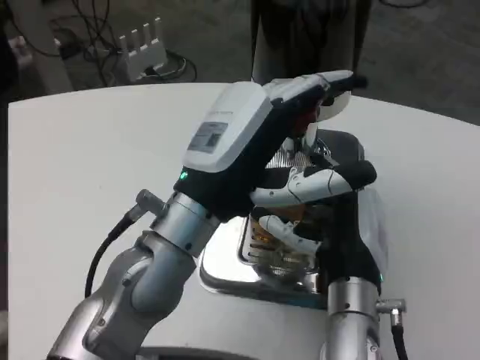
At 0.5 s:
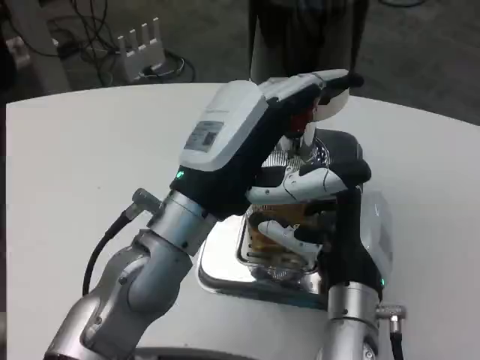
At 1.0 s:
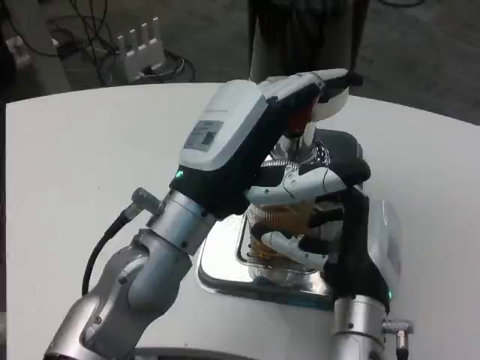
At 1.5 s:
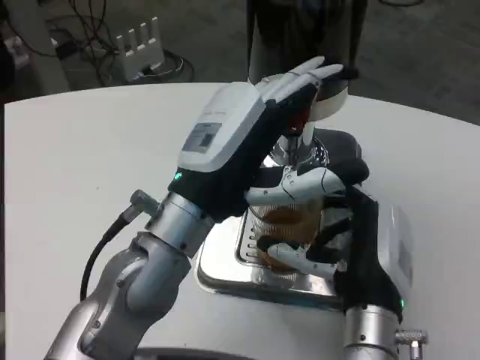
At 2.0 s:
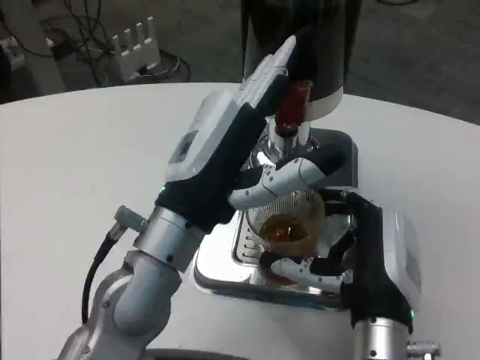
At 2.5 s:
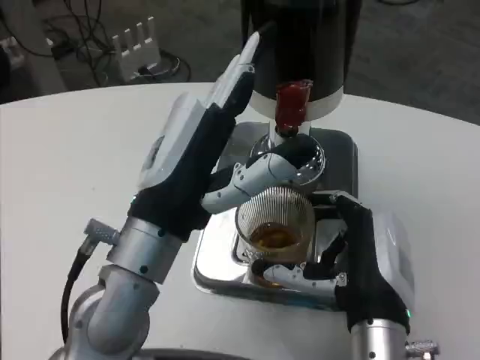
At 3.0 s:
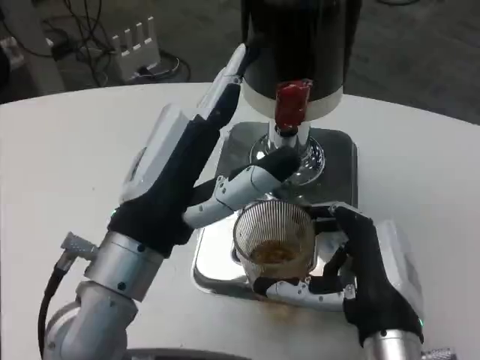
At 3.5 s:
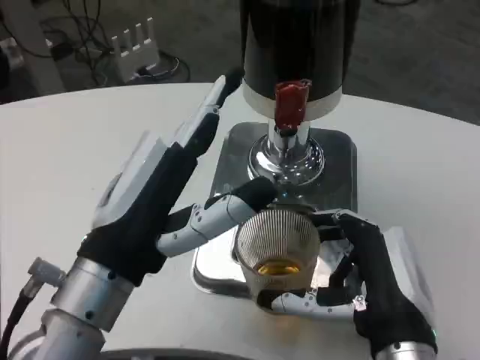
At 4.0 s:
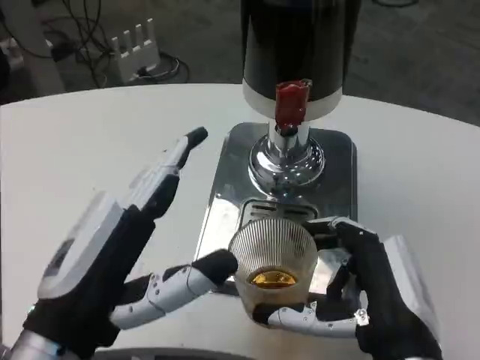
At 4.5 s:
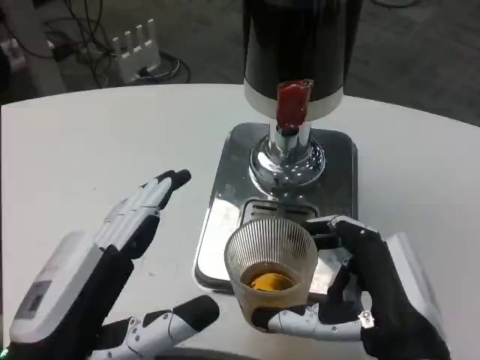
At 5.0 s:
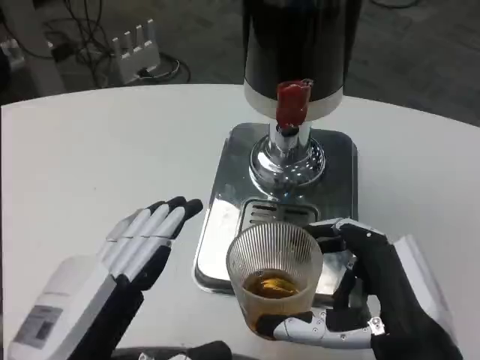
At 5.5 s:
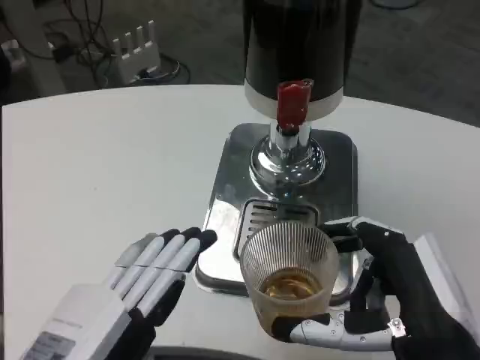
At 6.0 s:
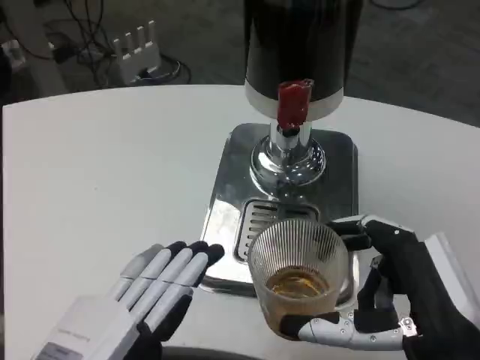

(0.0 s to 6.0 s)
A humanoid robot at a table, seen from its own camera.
Task of the whole recording: Grasp the cup under the faucet to collect the drink, then remove the cup.
2.0 s - 4.0 s: The right hand travels backward by about 5 cm. The left hand shifts roughly 15 cm backward and to the left.
4.0 s - 6.0 s: The left hand goes about 5 cm backward, while the right hand ends up approximately 5 cm from where it was.

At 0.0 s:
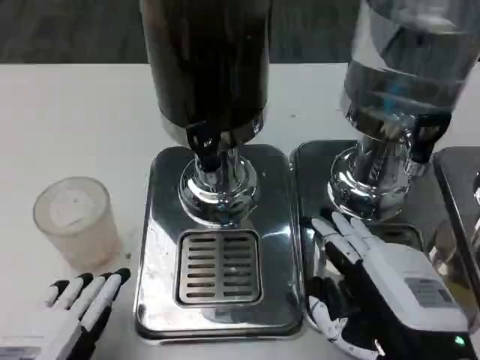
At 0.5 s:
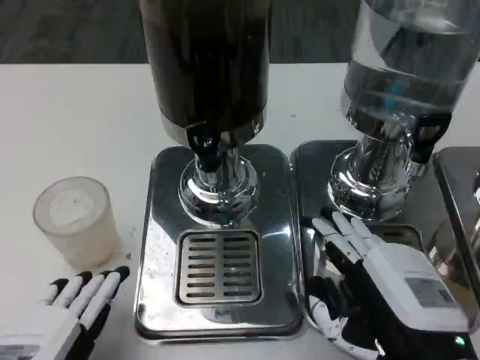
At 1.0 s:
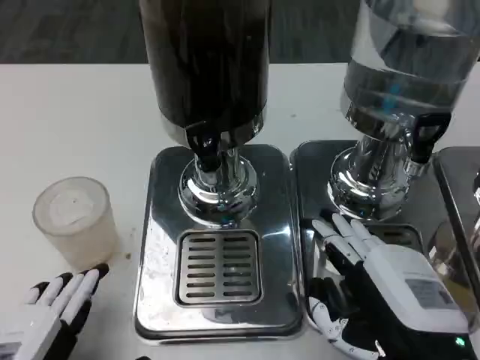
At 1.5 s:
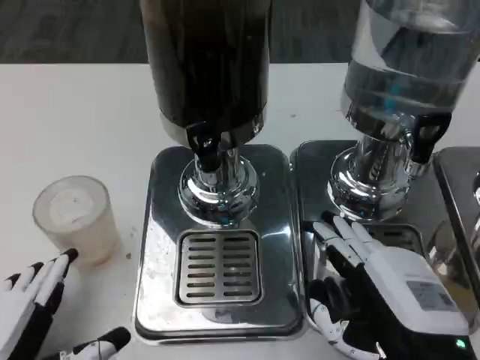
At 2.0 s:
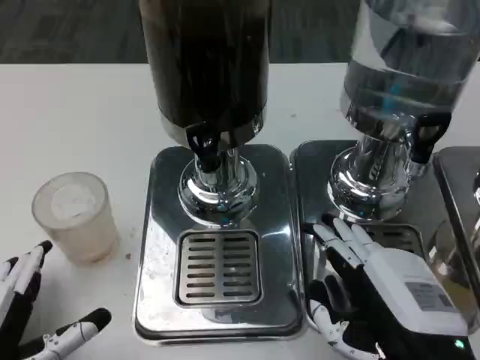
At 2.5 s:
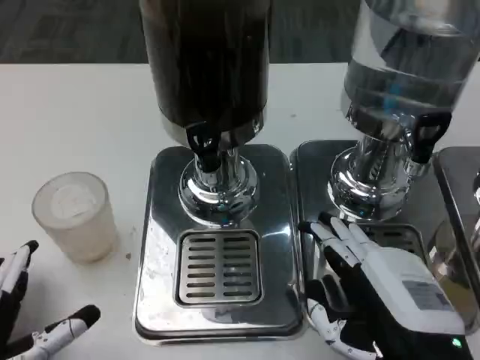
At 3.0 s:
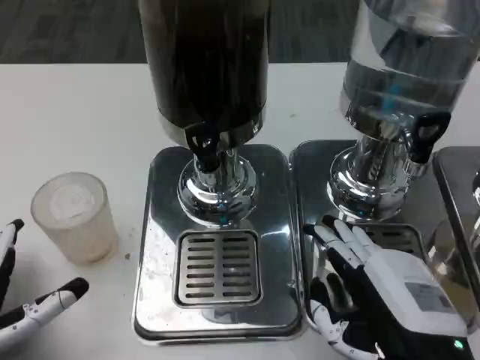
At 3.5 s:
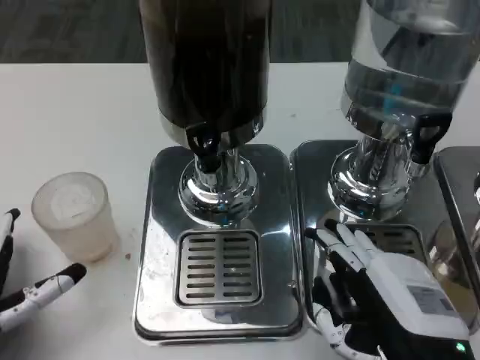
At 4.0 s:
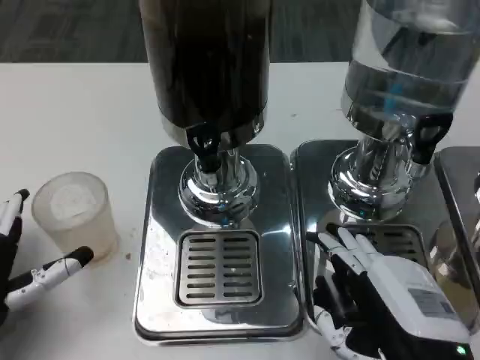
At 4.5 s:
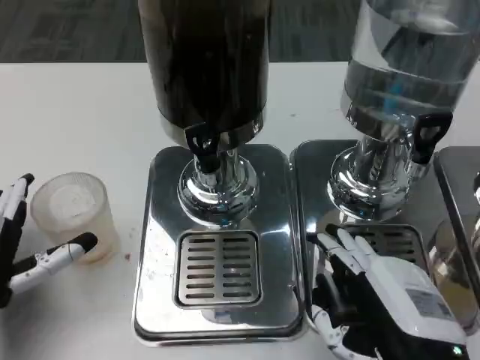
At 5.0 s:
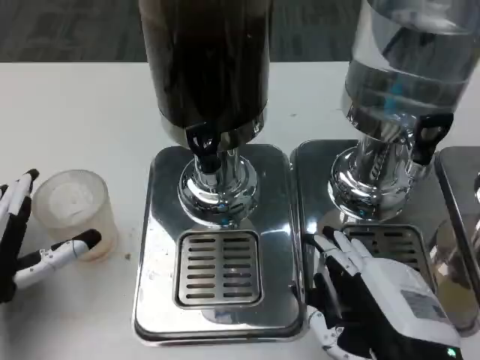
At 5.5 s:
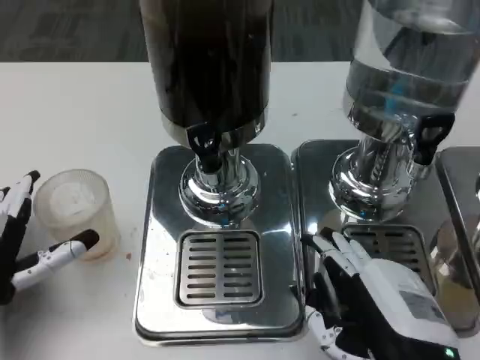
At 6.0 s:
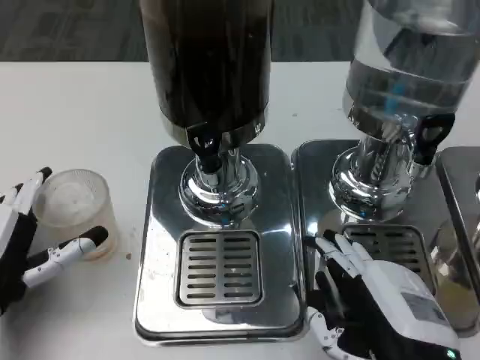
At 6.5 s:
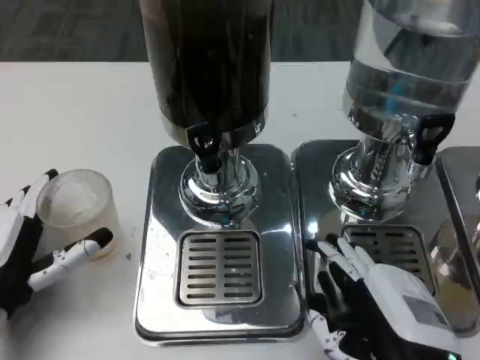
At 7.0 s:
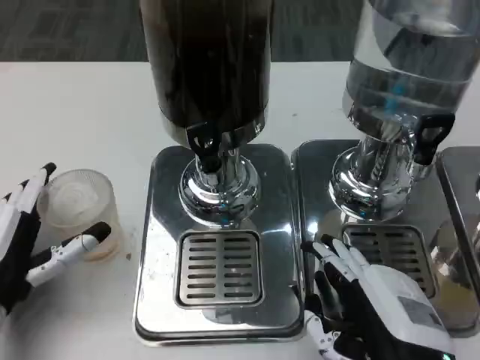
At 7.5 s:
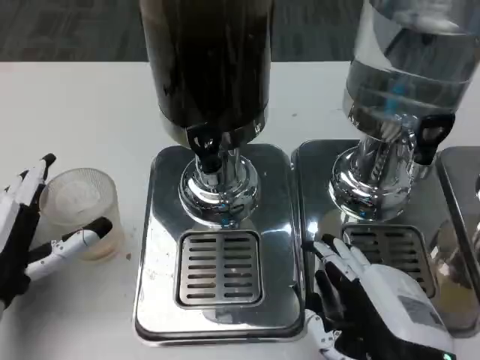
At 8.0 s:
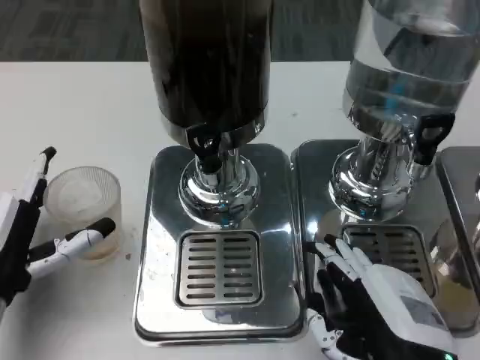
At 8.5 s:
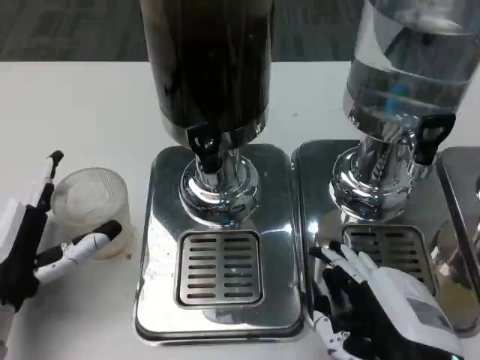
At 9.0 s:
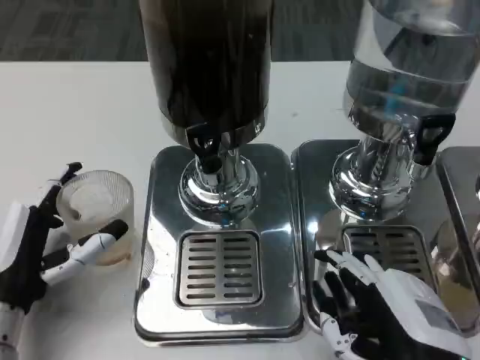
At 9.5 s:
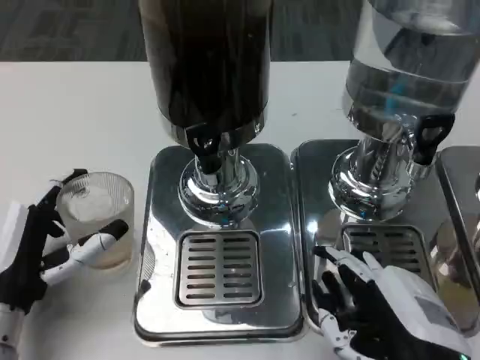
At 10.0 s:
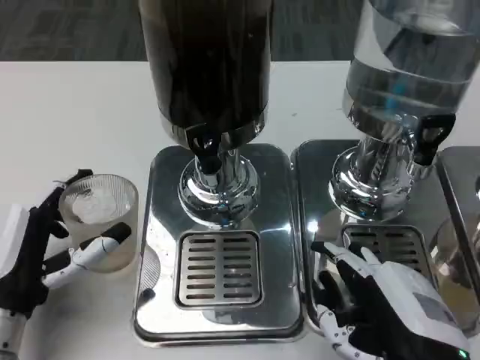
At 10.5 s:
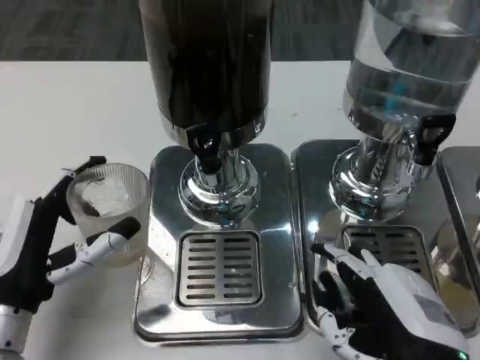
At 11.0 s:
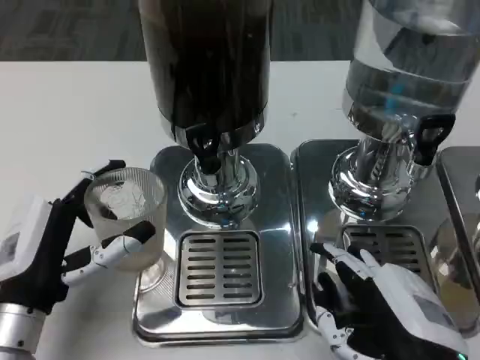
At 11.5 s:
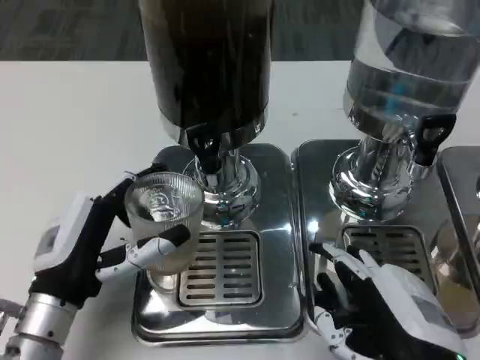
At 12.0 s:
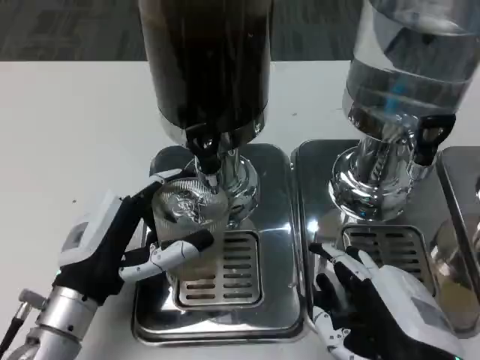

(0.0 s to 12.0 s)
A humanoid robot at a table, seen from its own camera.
Task of the whole recording: Grasp the cup under the faucet to collect the drink, then remove the cup.
0.0 s - 2.0 s: The hands move only a little.
2.0 s - 4.0 s: The left hand goes about 5 cm forward.
4.0 s - 8.0 s: The hands make only small movements.
8.0 s - 10.0 s: The hands move only a little.
10.0 s - 12.0 s: The left hand moves to the right, roughly 5 cm.

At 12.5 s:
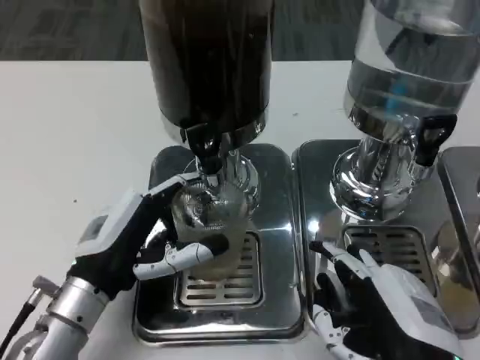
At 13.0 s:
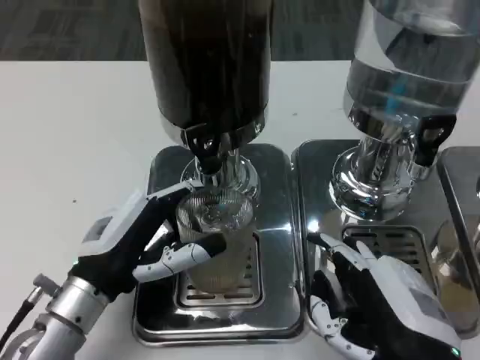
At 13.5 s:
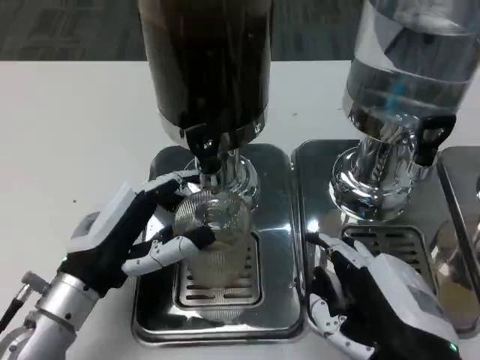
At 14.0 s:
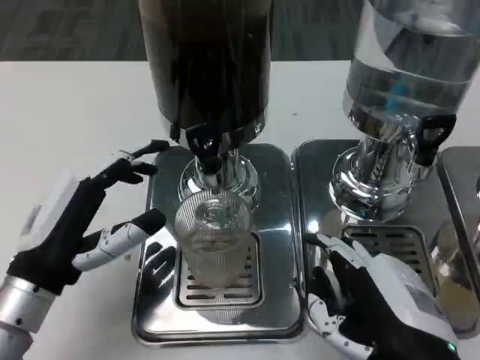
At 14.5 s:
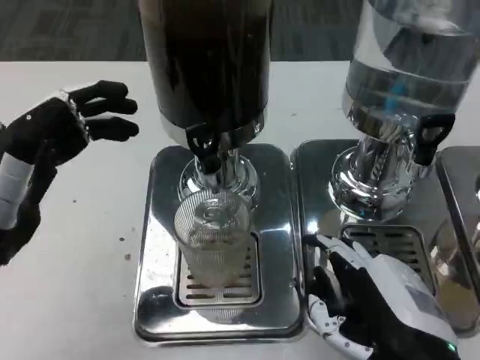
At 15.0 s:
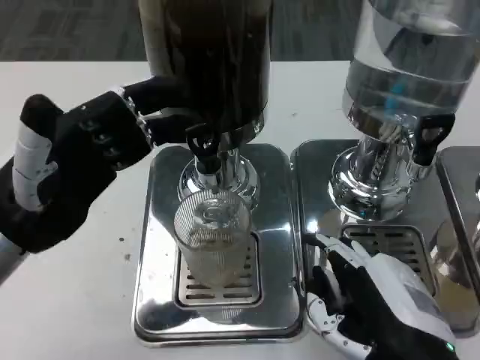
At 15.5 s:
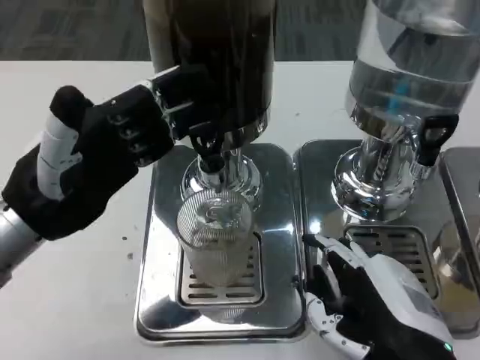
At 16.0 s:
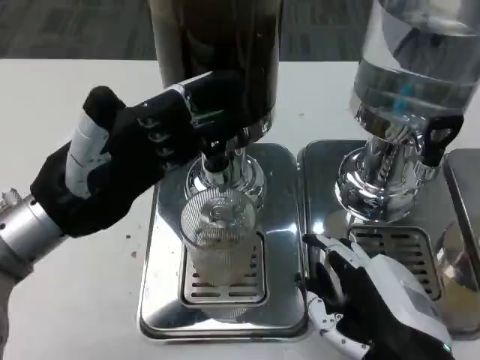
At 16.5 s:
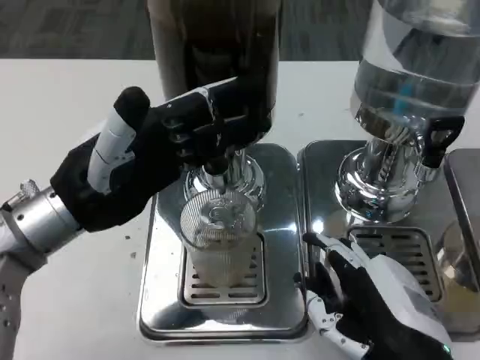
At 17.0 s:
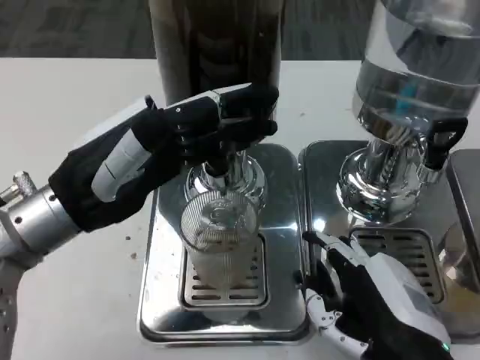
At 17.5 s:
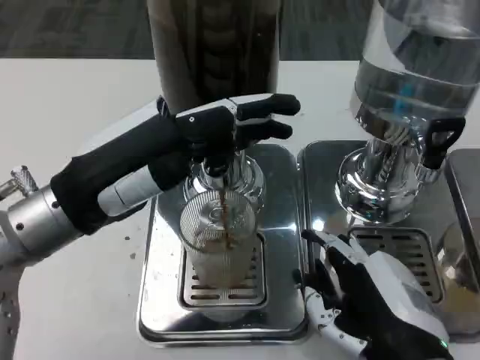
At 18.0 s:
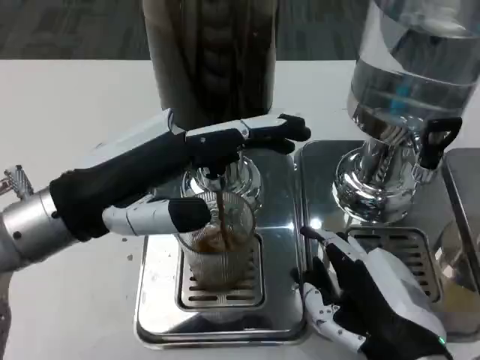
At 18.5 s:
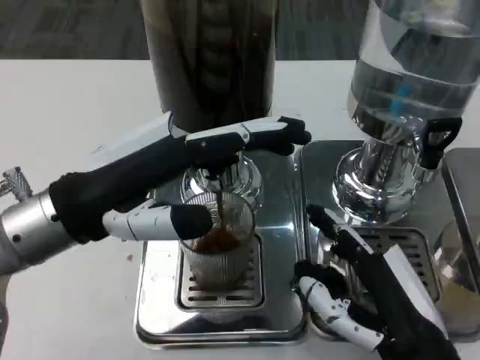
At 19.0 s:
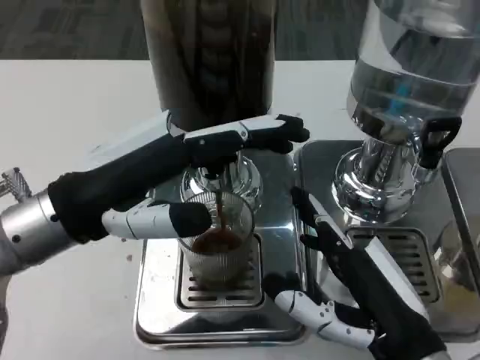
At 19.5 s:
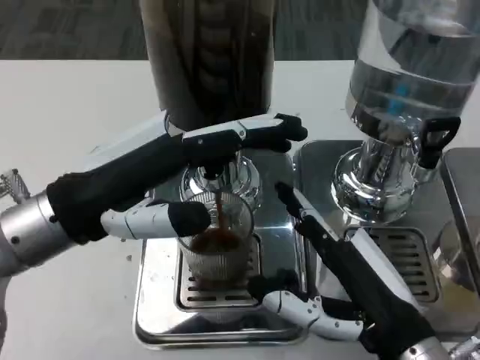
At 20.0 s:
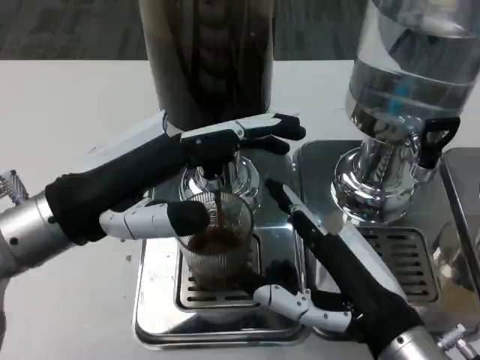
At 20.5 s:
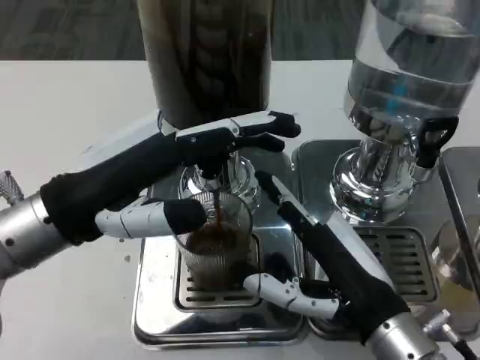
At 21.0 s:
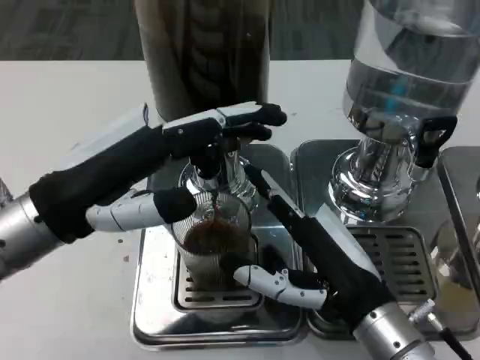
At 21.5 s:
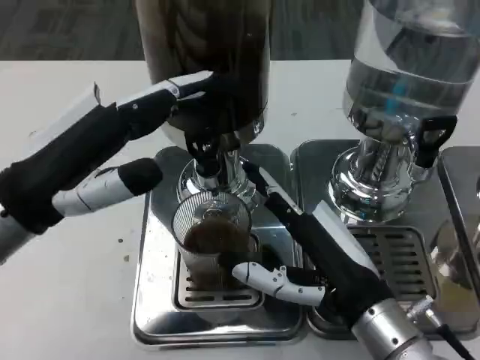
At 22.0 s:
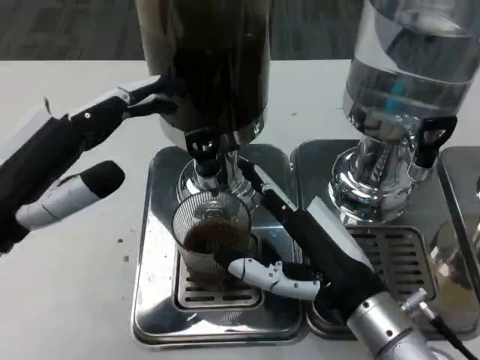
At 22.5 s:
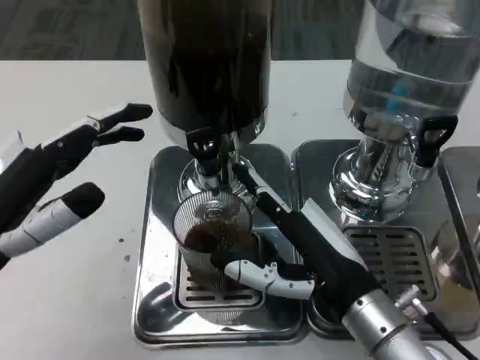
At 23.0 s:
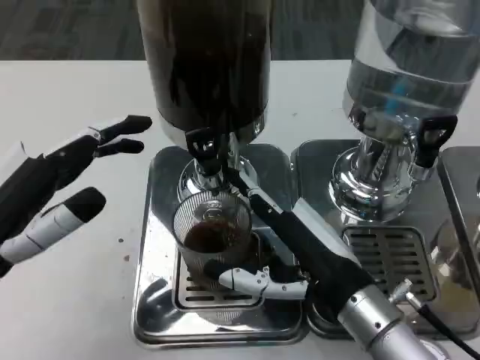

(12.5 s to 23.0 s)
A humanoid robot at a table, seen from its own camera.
Task of the whole recording: Grasp the cup under the faucet to collect the drink, then remove the cup.
12.5 s - 14.5 s: The left hand shifts approximately 10 cm upward and to the left.
14.5 s - 16.5 s: The left hand shifts about 5 cm forward.
19.0 s - 21.0 s: The right hand ends up about 5 cm from where it was.
21.0 s - 23.0 s: The left hand is displaced backward and to the left by about 5 cm.
